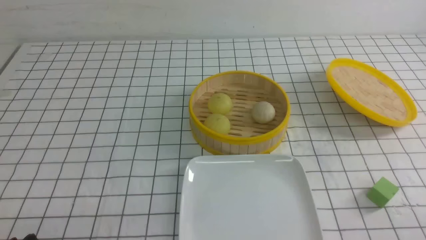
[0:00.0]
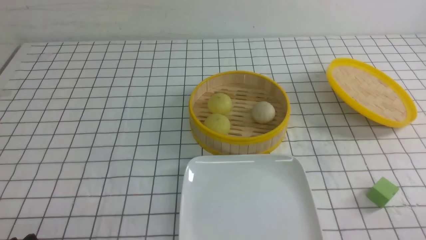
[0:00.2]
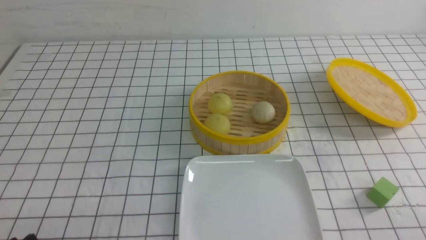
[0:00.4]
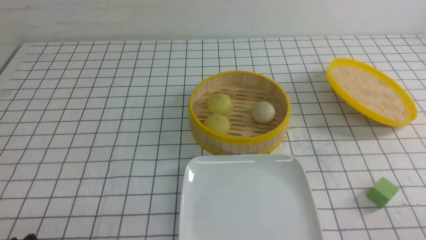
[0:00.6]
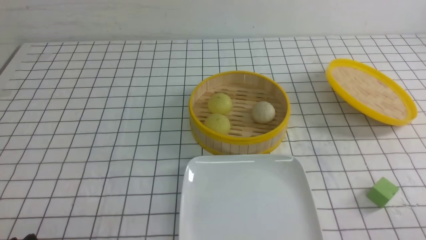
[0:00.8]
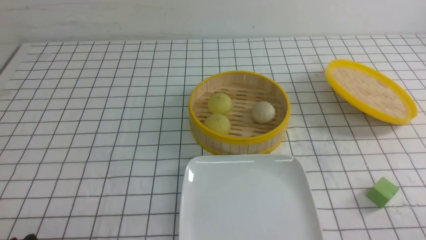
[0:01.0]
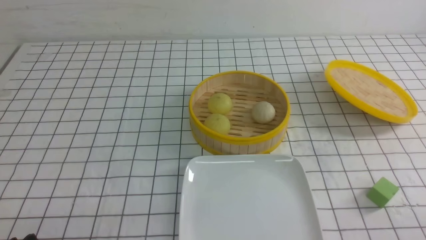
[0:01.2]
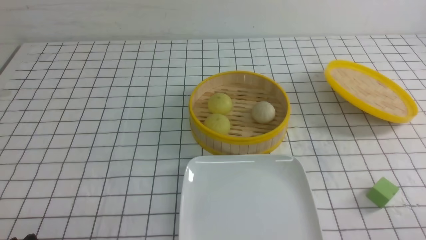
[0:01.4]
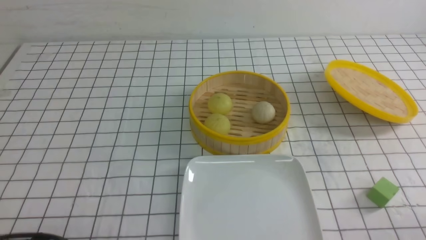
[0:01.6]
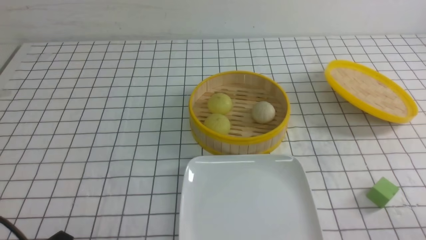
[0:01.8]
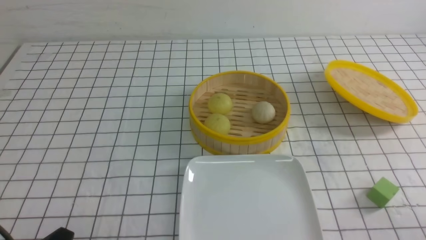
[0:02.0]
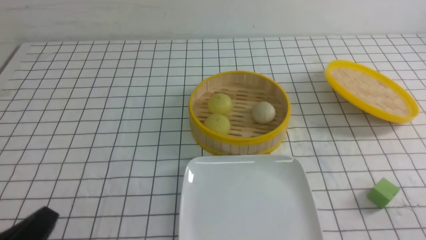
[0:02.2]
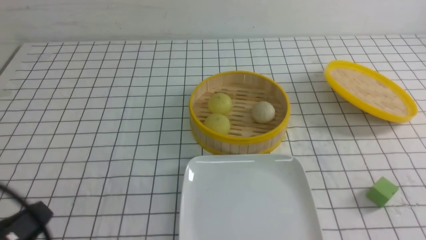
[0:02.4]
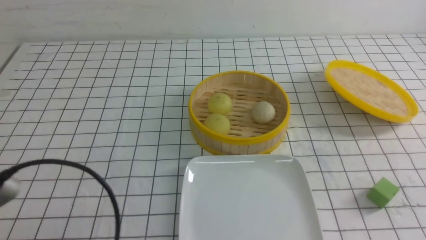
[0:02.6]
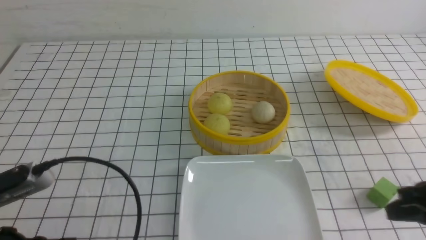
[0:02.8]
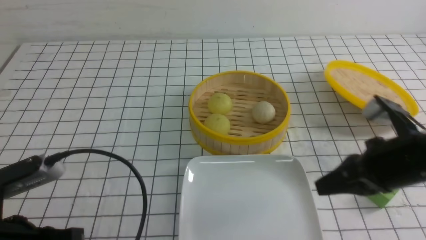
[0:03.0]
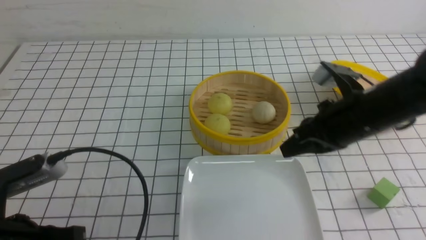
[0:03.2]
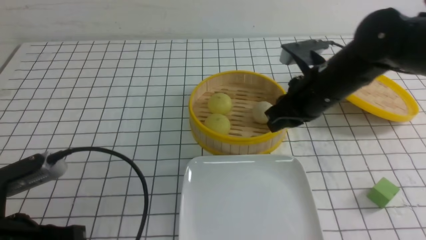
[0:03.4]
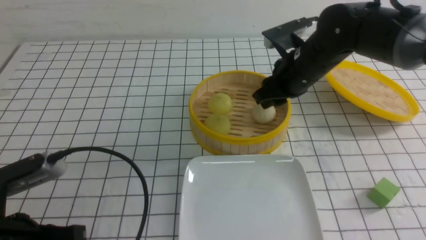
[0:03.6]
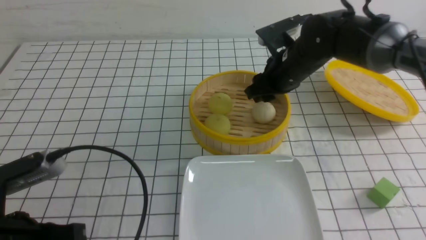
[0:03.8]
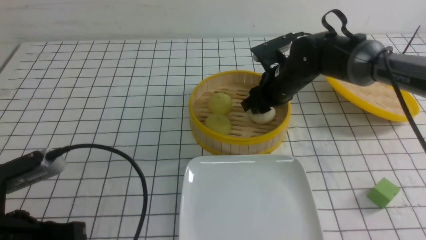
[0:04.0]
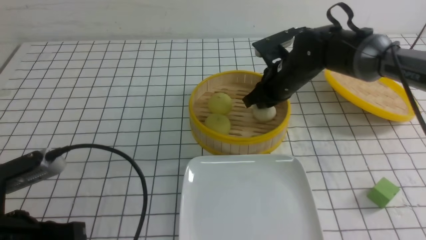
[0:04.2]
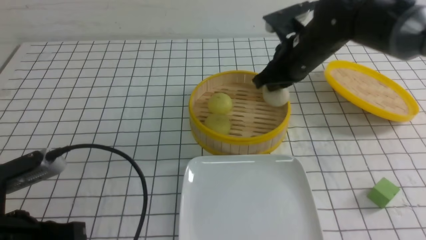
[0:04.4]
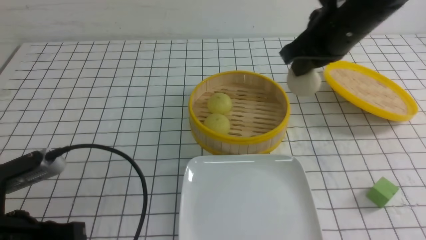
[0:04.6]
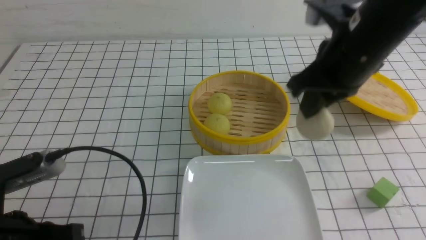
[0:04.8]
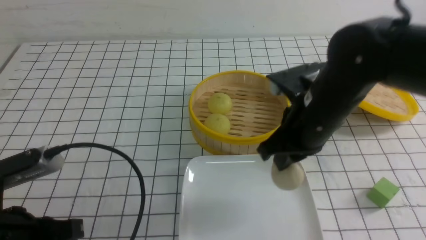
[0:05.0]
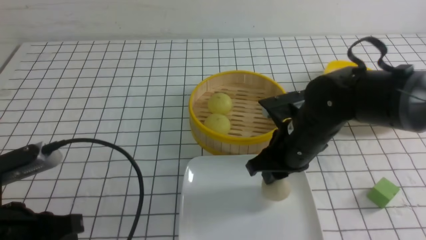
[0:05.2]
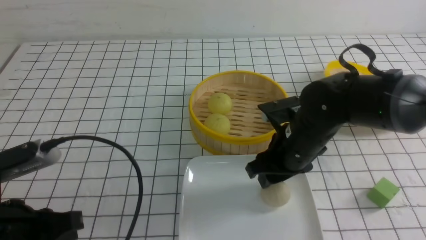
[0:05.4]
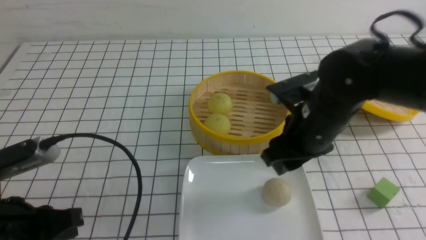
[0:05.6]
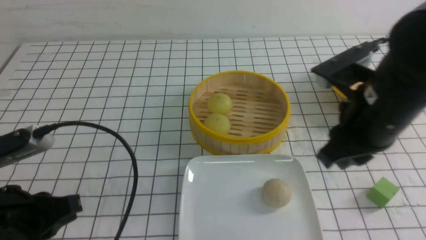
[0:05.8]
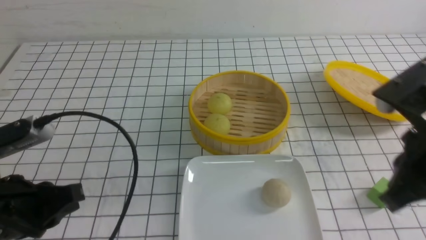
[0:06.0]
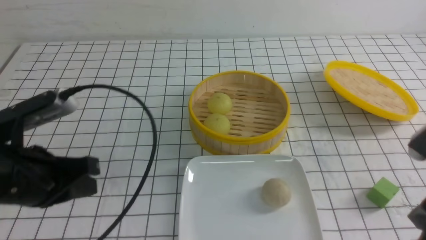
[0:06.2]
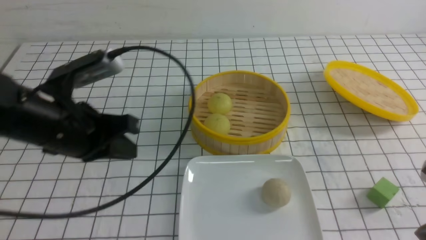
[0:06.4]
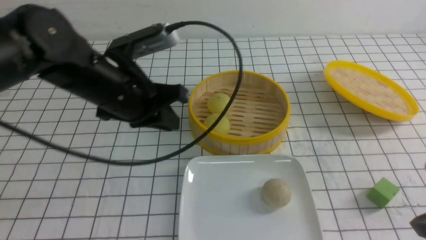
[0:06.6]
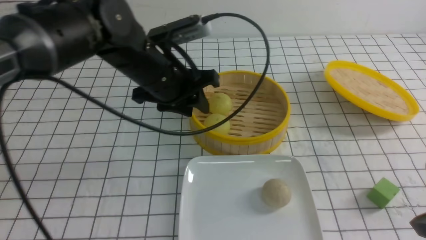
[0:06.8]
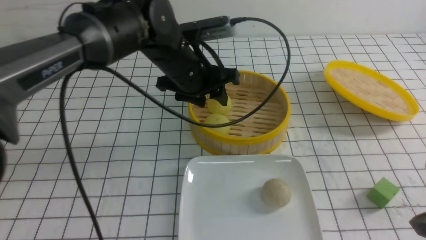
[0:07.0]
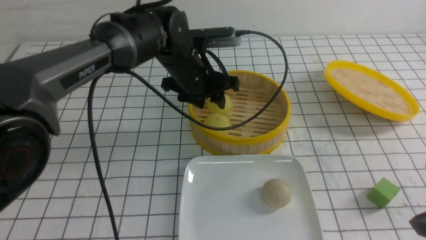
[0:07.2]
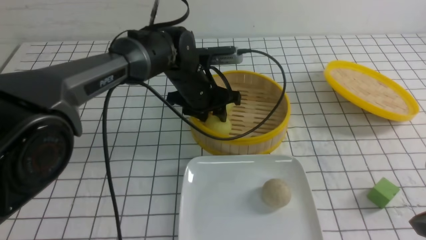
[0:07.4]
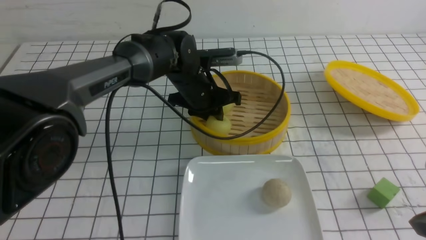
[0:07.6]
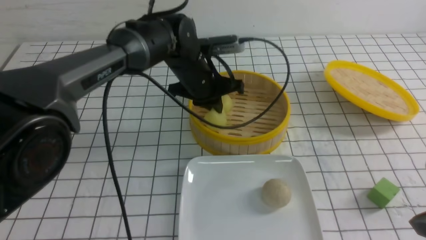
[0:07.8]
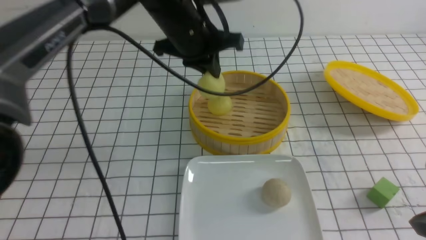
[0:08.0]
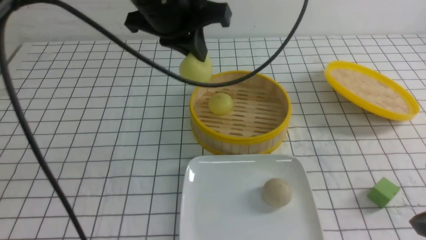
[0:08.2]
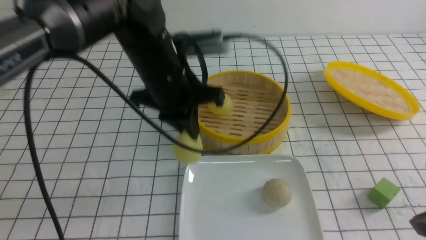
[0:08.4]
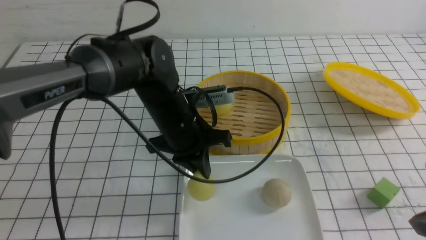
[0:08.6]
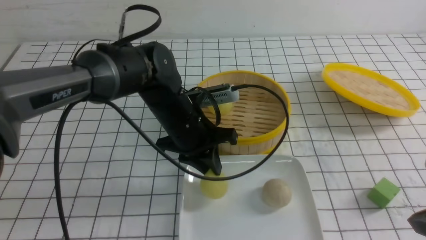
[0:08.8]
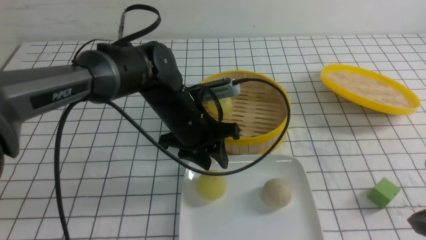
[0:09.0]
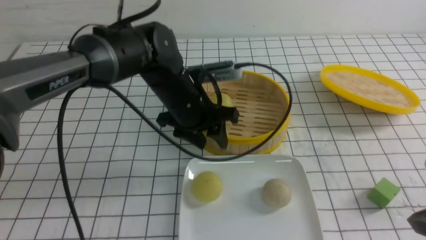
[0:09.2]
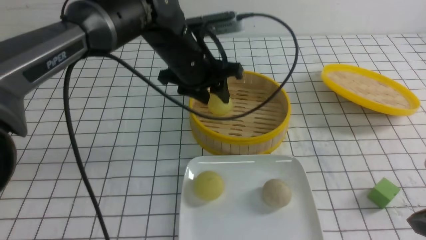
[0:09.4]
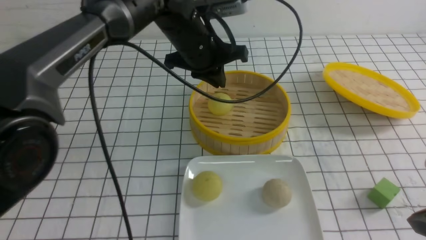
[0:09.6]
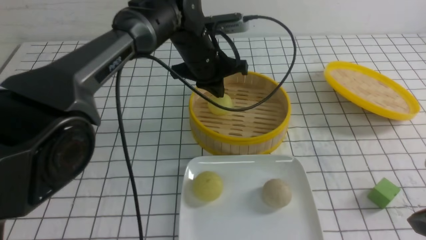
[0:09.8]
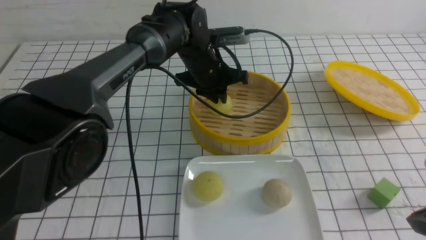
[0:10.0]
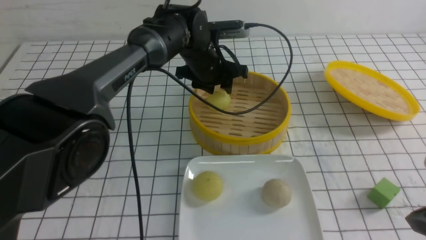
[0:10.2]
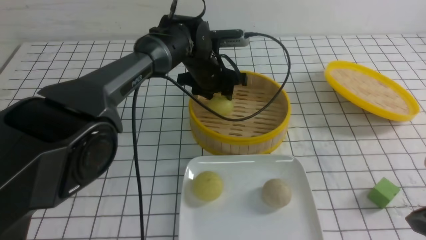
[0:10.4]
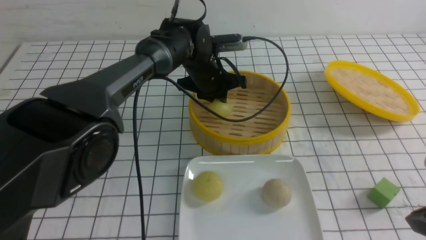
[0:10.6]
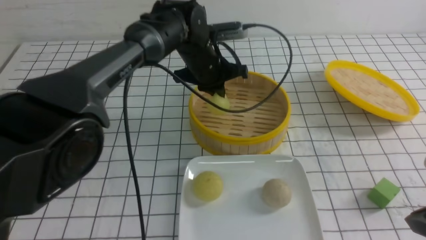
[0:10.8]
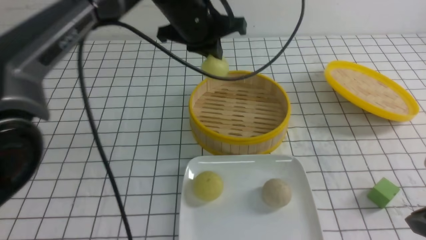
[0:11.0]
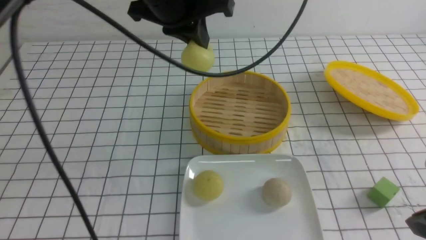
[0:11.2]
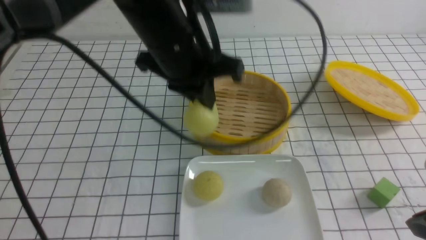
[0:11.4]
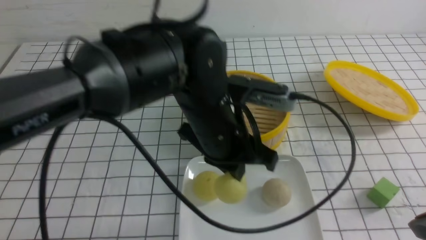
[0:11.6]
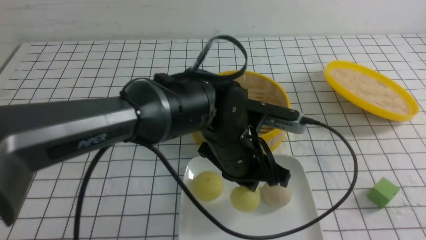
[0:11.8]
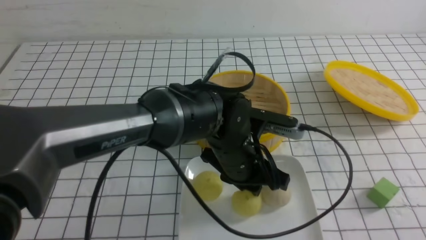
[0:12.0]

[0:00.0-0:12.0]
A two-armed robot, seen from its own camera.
Step, 0:00.0 to 0:04.2: use the right arm to grab the steamed stuffed bun that is closest to it.
Step, 0:04.4 to 0:05.4: use the right arm to put the steamed stuffed bun into the plate.
Step, 0:05.6 to 0:07.8: use the left arm to grab the steamed stuffed bun that is closest to it.
Step, 0:08.0 to 0:09.0: use the left arm to put the steamed stuffed bun into the plate.
Step, 0:09.4 to 0:10.8: use the left arm to grab the steamed stuffed bun that is closest to it.
0:01.6 to 0:03.0: The right gripper moves forward, to the left and upward, about 20 cm, and closes up. The left gripper moves upward and forward, roughly 10 cm, and closes its fingers.
0:03.0 to 0:04.4: The right gripper moves forward and to the left, roughly 20 cm, and opens, then closes again.
0:04.4 to 0:06.0: The right gripper moves backward, roughly 20 cm, and opens, then closes again.
0:06.0 to 0:07.6: The left gripper travels forward and to the right by approximately 35 cm, and opens; the right gripper heads backward, covering approximately 5 cm.
0:07.6 to 0:09.0: The left gripper shifts roughly 10 cm backward, travels upward and back again, roughly 15 cm each way, and opens up.
0:09.0 to 0:10.4: The left gripper moves forward, roughly 10 cm, and closes, then reopens.
0:10.4 to 0:12.0: The left gripper moves backward, approximately 20 cm, and closes, then reopens. Meanwhile the right gripper heads backward, covering approximately 5 cm.

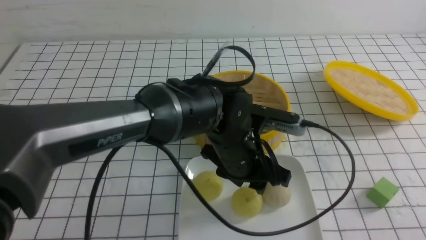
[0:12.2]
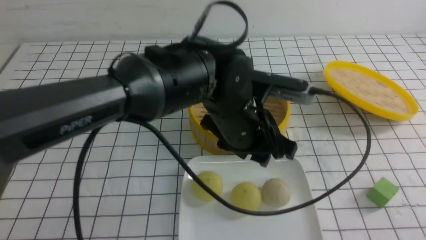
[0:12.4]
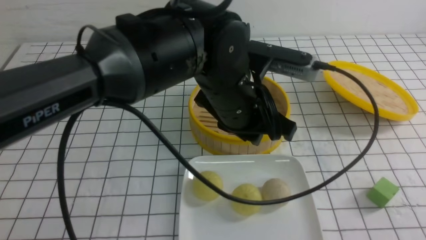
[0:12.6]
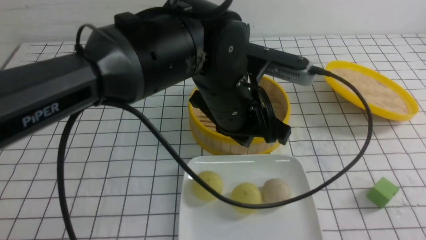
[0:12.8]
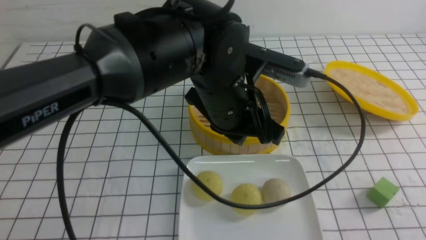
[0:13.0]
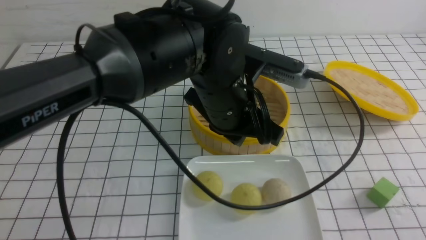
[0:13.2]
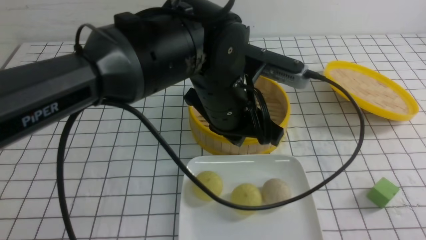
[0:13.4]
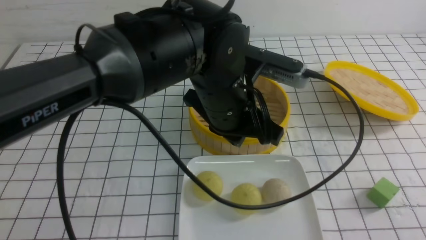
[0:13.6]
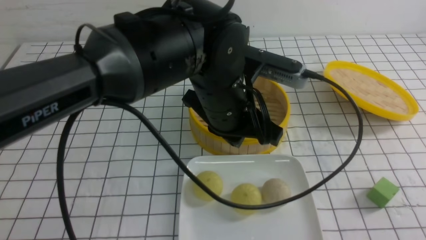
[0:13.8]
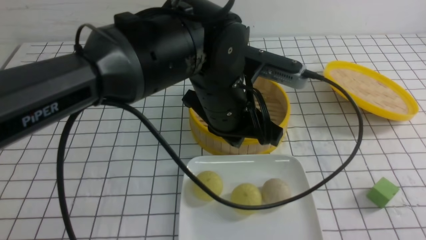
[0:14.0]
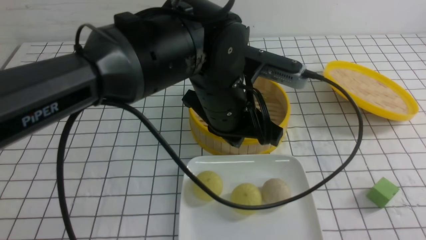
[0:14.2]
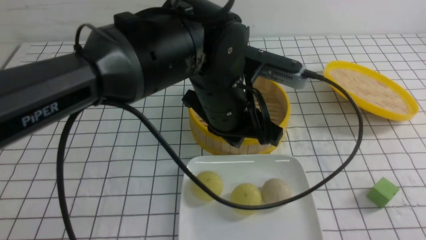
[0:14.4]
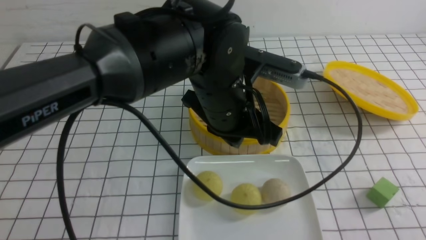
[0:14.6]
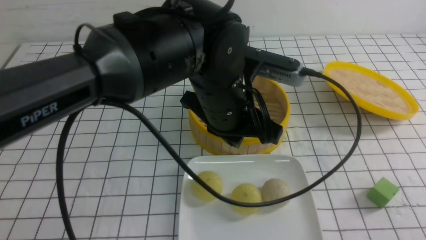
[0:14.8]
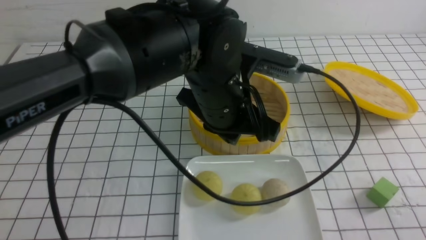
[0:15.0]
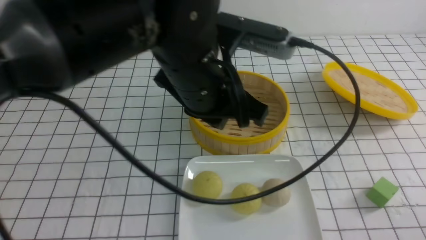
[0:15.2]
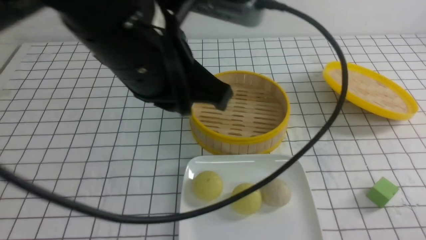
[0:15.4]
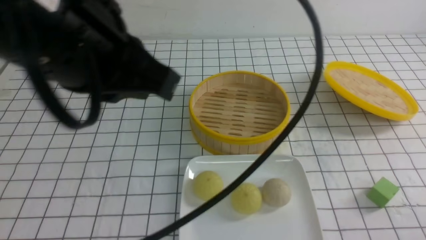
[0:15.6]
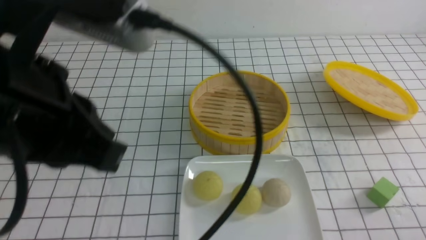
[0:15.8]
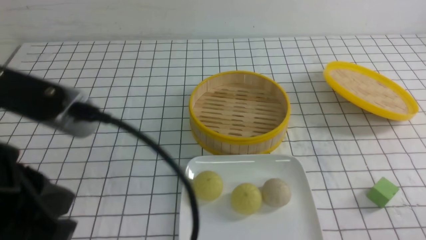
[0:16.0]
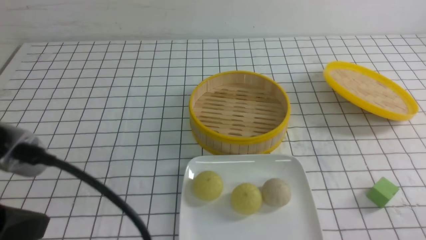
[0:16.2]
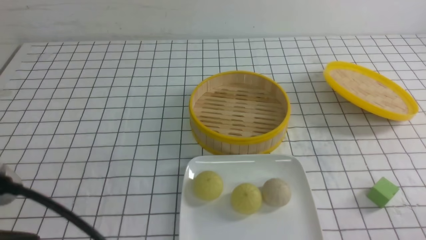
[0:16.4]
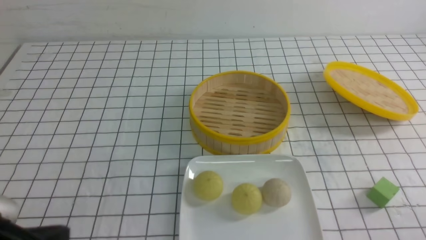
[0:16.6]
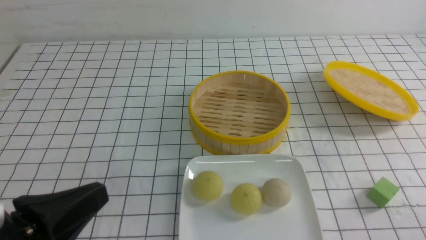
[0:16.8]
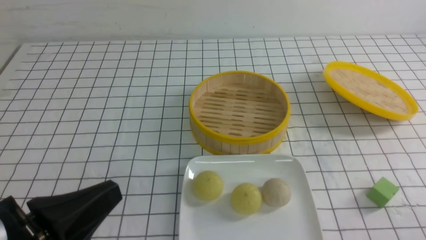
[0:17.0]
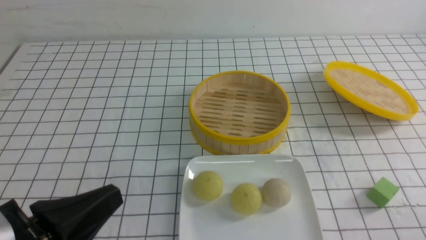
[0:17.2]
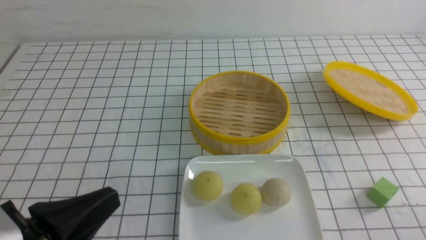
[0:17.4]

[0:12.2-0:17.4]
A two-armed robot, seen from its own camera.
0:12.2 to 0:14.0: The left gripper is displaced upward by roughly 10 cm, and closes.
0:14.0 to 0:15.6: The left gripper goes about 20 cm to the left, upward and backward. The right gripper goes about 10 cm downward.
0:15.6 to 0:17.4: The left gripper travels downward, backward and to the left by about 20 cm.
